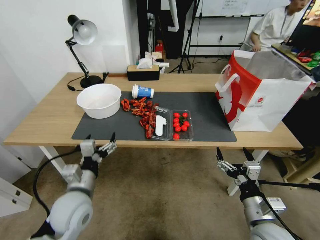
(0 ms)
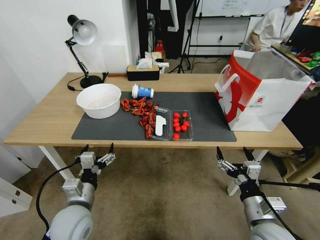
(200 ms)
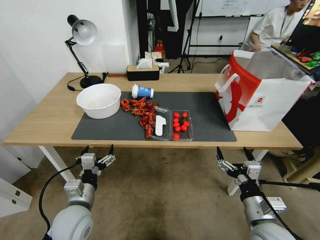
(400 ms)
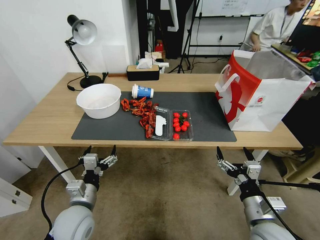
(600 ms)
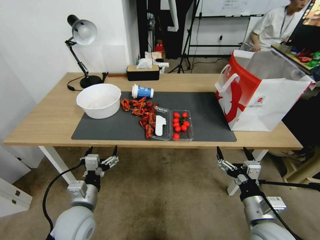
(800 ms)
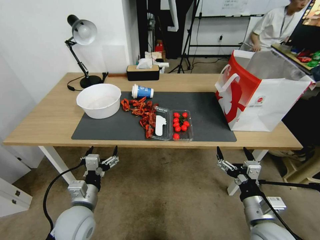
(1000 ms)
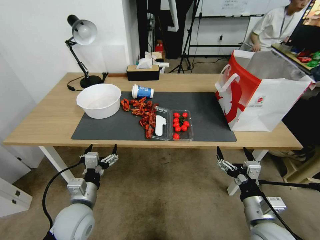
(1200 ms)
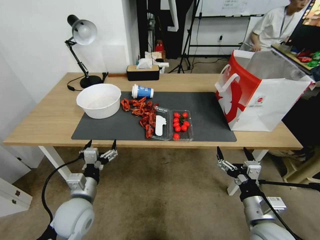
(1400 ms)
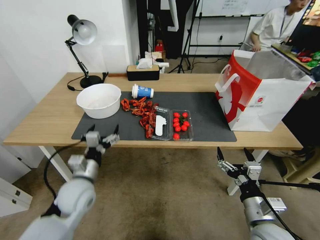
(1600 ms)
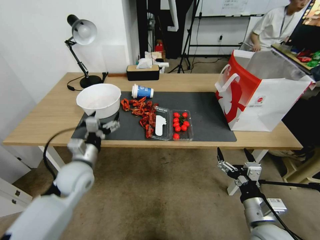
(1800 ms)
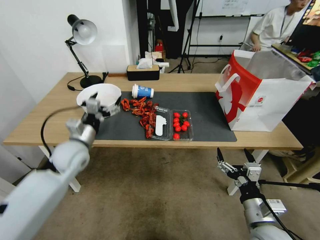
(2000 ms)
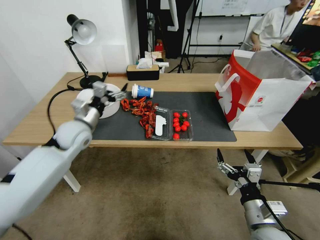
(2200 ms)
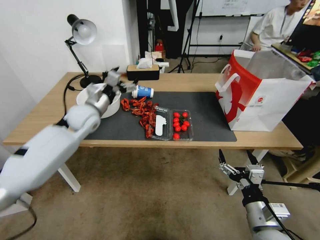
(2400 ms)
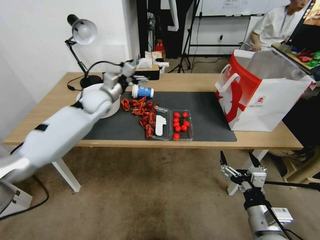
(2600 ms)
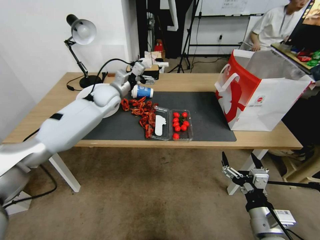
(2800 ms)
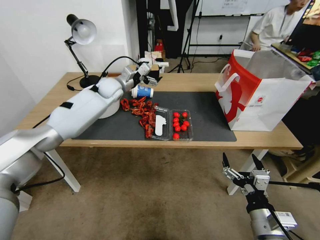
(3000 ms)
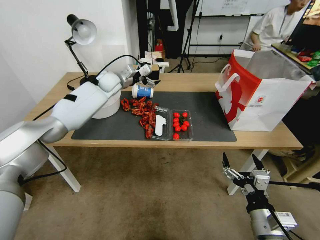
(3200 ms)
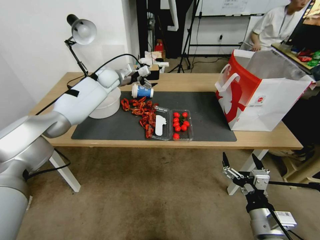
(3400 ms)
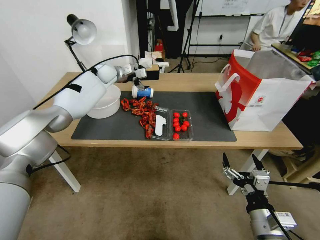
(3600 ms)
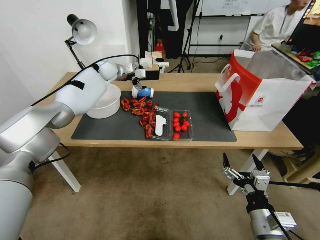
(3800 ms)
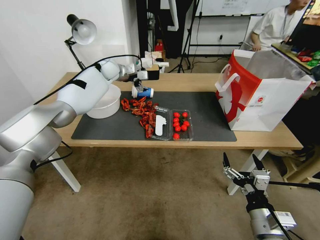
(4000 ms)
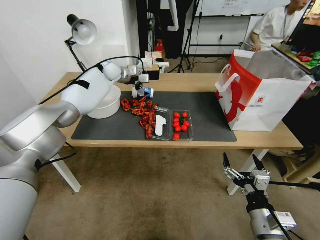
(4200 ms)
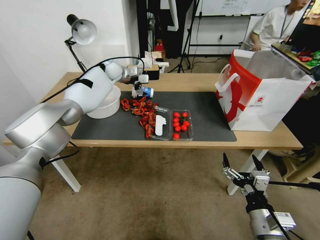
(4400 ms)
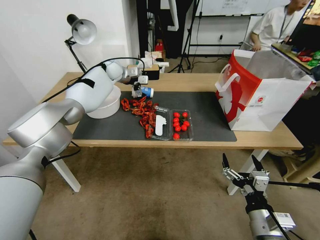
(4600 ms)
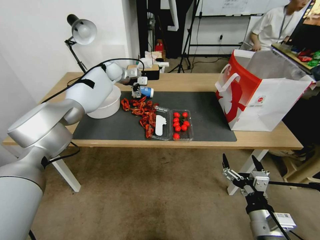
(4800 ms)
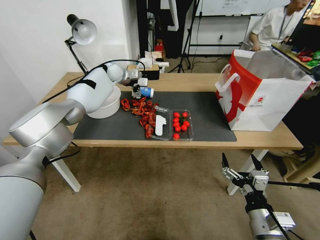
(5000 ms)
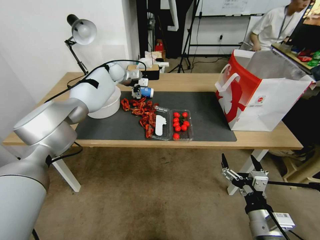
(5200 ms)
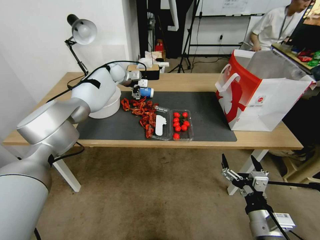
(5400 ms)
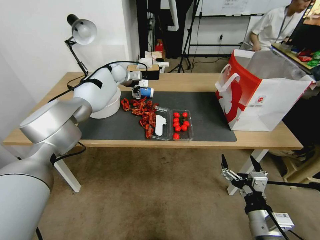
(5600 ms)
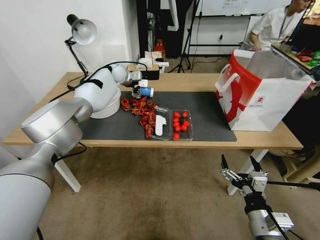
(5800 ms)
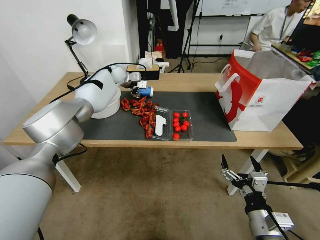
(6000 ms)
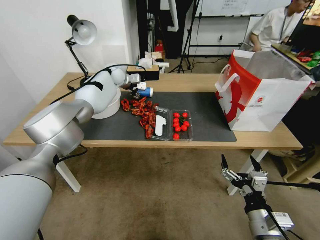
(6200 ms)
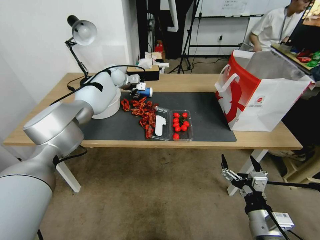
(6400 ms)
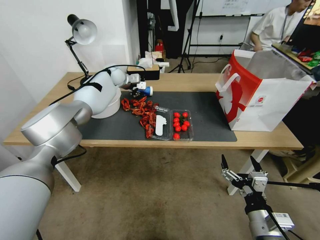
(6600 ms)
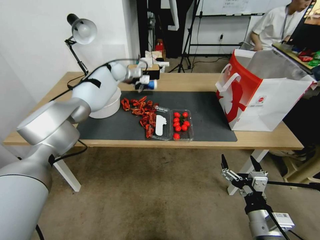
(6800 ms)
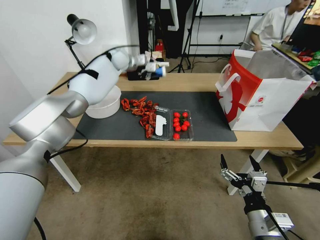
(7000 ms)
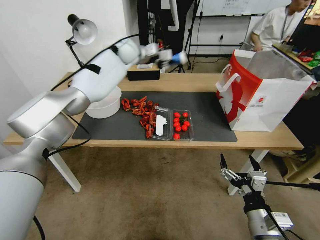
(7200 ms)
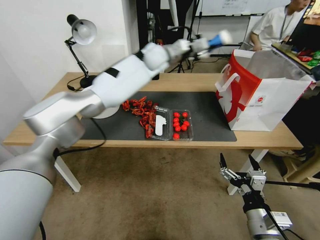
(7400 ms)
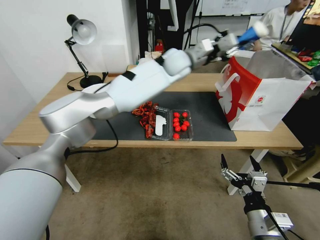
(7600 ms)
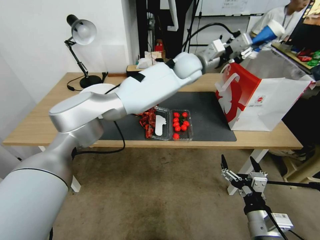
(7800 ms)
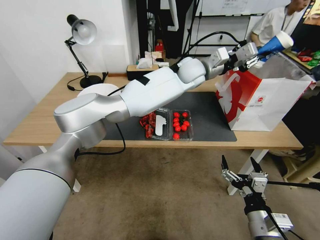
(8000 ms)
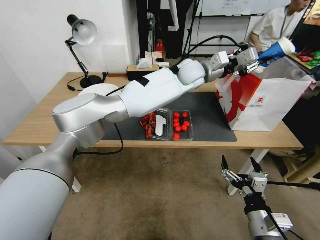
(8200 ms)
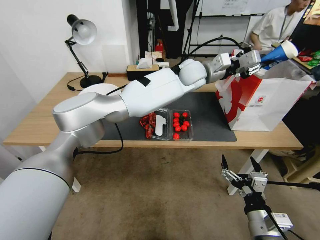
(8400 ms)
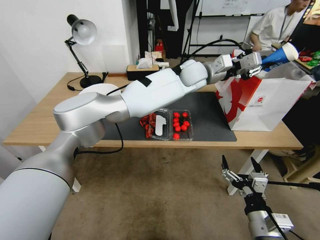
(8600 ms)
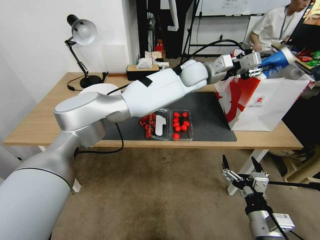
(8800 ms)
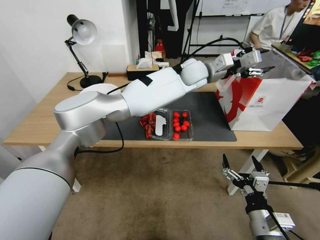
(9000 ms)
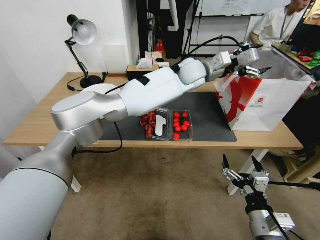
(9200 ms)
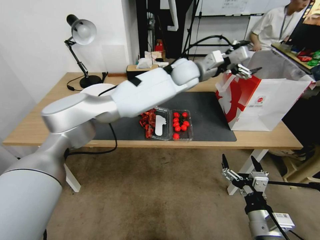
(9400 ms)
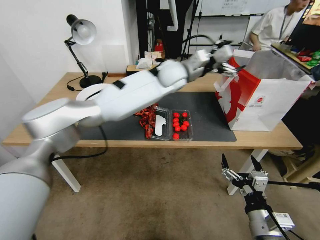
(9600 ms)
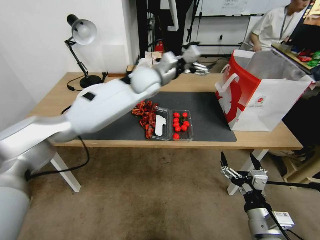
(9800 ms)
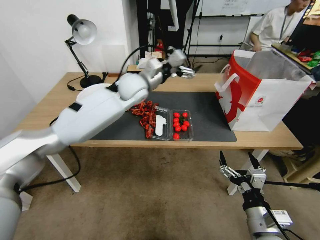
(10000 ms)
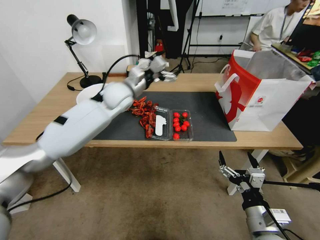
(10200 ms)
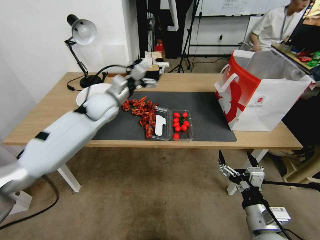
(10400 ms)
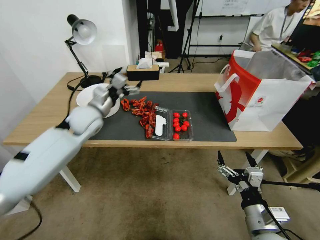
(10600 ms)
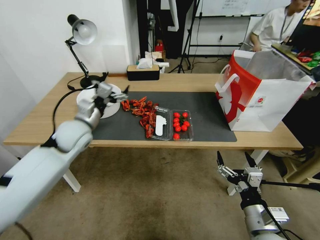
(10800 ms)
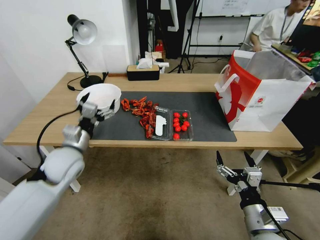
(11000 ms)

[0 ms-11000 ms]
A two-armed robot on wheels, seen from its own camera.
0 ms to 1600 ms: There are only small adjustments of the grippers.
1600 ms to 3200 ms: The left gripper shifts roughly 40 cm forward and upward.
3200 ms to 4800 ms: The left gripper goes roughly 5 cm forward.
4800 ms to 6200 ms: The left gripper closes up.
6200 ms to 7800 ms: The left gripper moves to the right and backward, roughly 30 cm, and closes.
7800 ms to 9400 ms: The left gripper opens.
9400 ms to 11000 ms: The left gripper goes some 50 cm to the left, backward and downward.

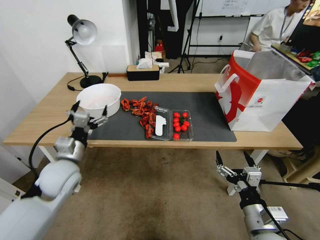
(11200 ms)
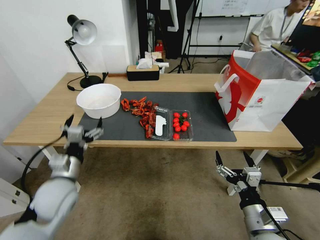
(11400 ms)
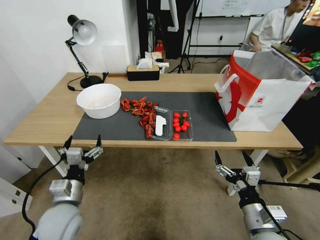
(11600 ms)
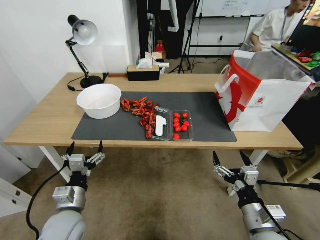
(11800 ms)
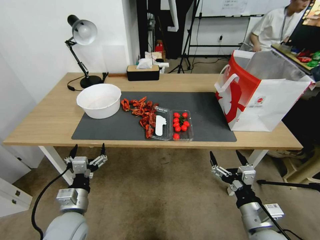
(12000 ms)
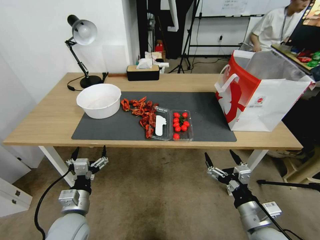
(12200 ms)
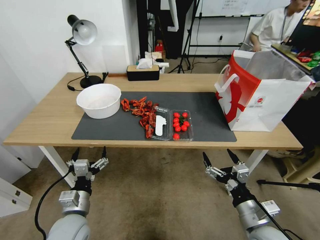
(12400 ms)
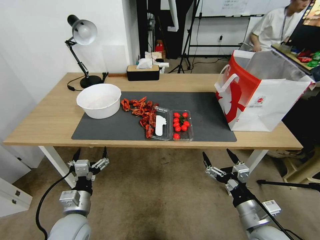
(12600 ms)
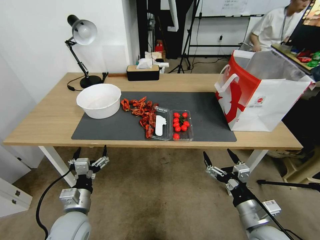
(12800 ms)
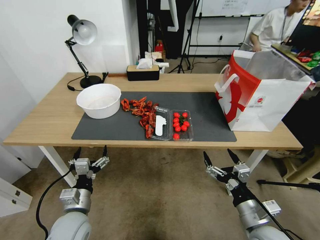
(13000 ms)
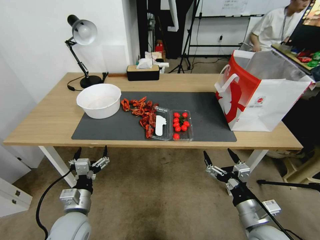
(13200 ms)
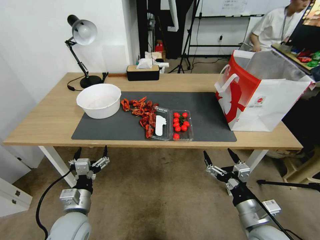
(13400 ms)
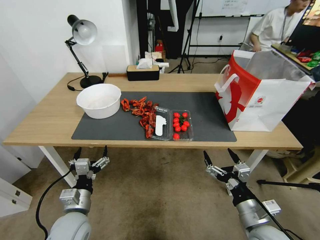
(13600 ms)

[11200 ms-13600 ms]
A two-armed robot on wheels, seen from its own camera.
11200 ms to 12400 ms: The left gripper heads backward and downward, covering some 15 cm.
12400 ms to 13600 ms: Both grippers stay about where they are.

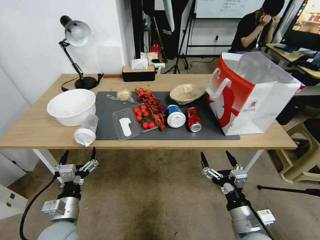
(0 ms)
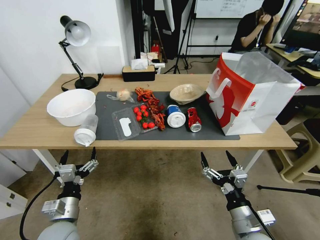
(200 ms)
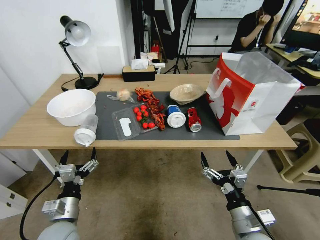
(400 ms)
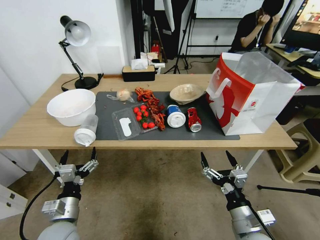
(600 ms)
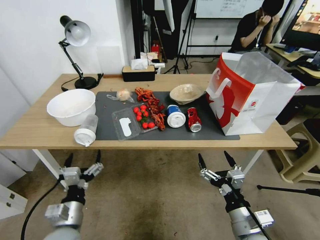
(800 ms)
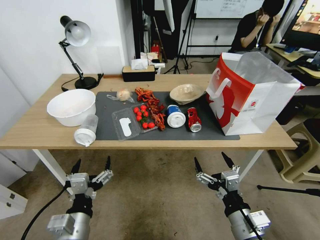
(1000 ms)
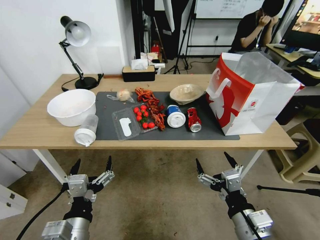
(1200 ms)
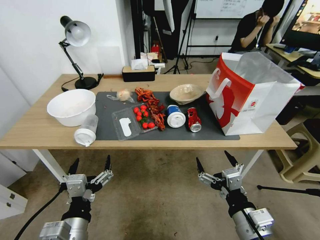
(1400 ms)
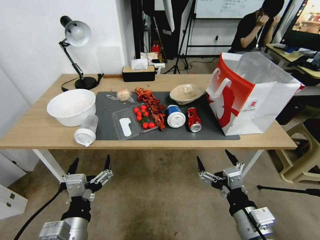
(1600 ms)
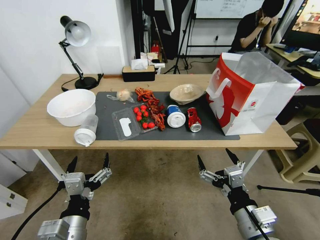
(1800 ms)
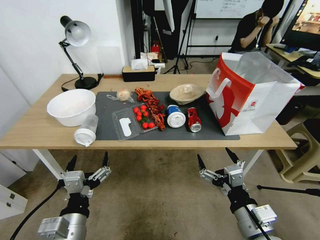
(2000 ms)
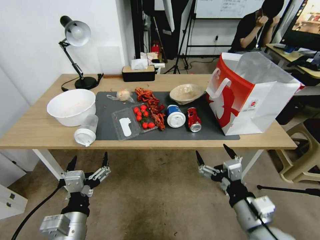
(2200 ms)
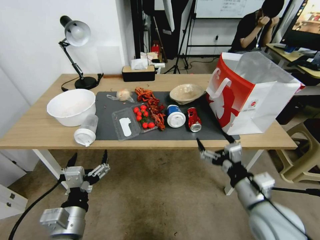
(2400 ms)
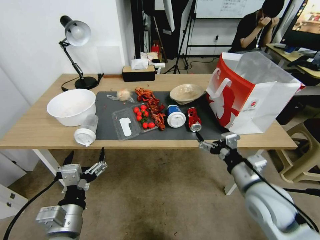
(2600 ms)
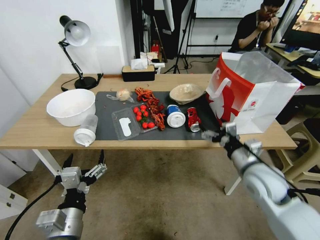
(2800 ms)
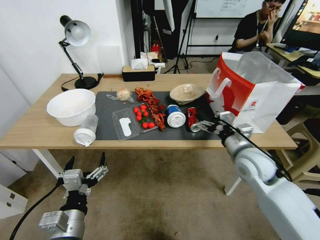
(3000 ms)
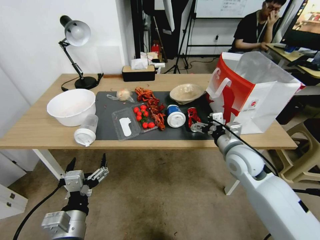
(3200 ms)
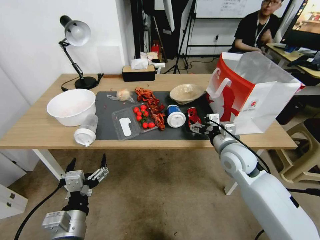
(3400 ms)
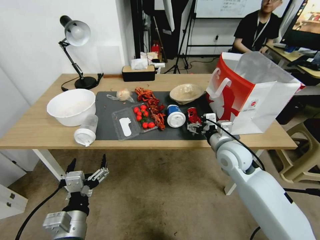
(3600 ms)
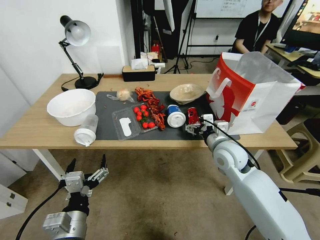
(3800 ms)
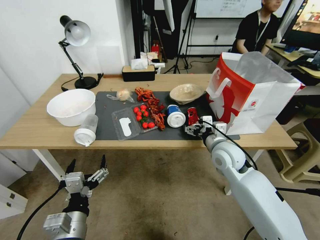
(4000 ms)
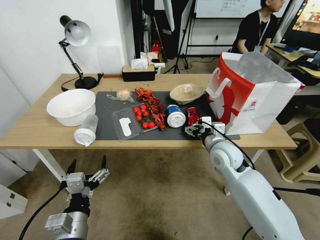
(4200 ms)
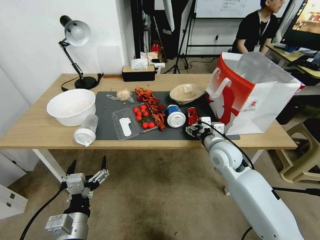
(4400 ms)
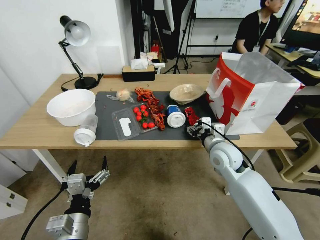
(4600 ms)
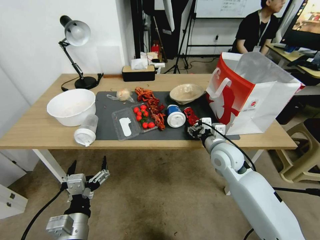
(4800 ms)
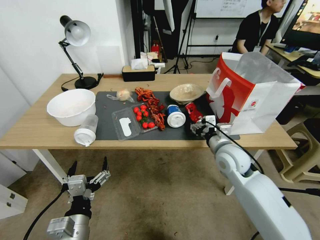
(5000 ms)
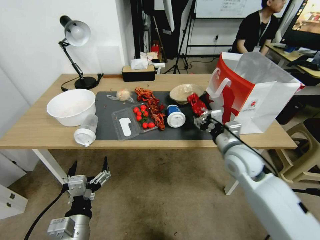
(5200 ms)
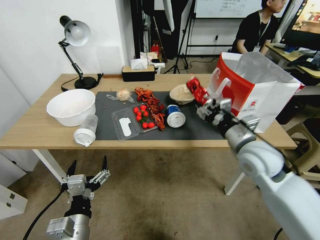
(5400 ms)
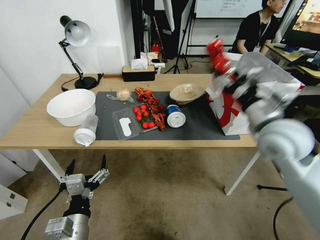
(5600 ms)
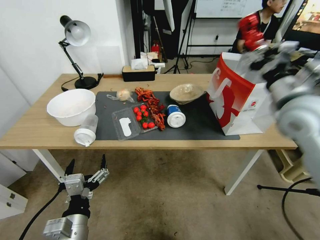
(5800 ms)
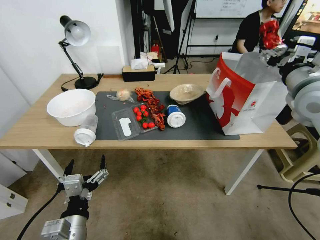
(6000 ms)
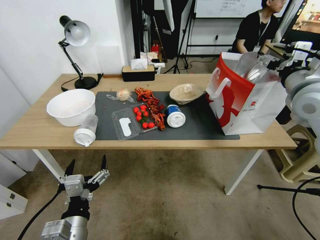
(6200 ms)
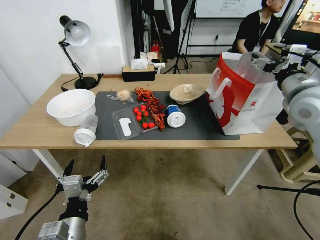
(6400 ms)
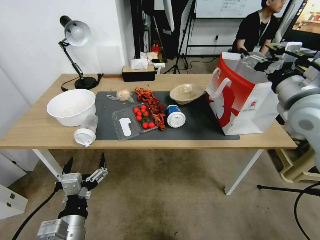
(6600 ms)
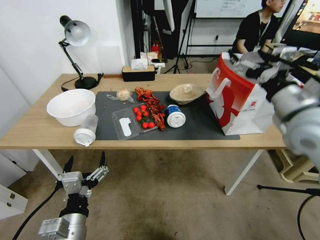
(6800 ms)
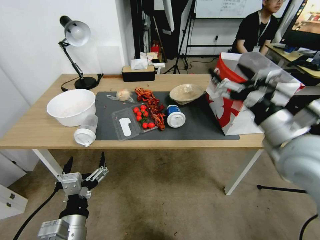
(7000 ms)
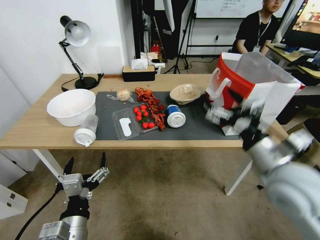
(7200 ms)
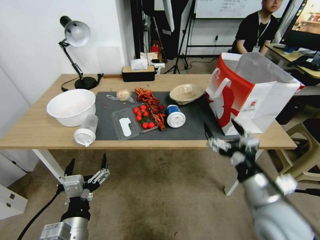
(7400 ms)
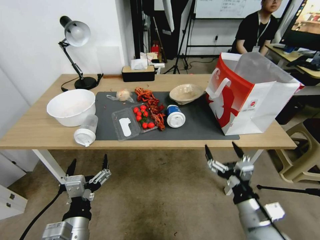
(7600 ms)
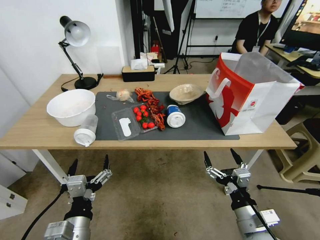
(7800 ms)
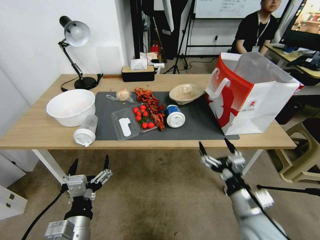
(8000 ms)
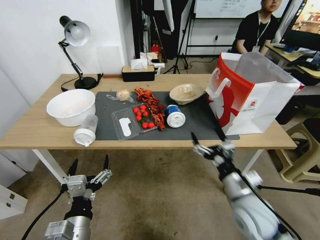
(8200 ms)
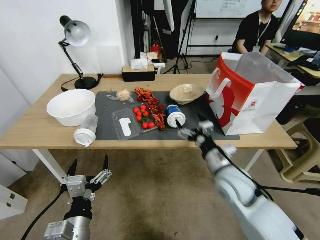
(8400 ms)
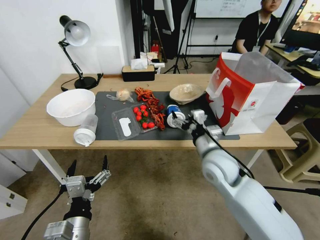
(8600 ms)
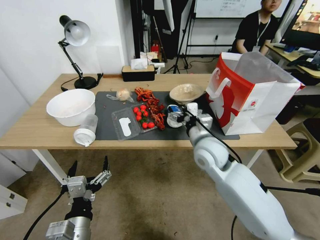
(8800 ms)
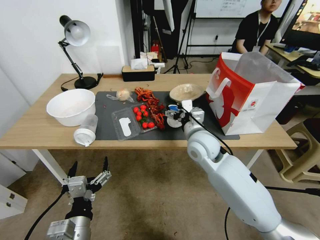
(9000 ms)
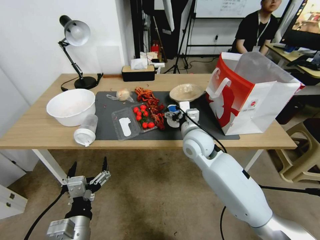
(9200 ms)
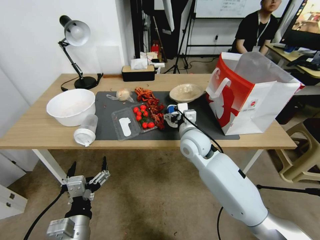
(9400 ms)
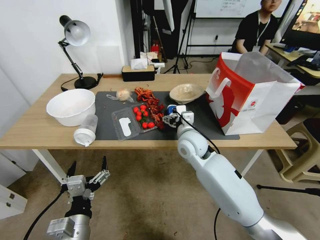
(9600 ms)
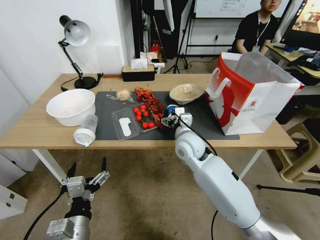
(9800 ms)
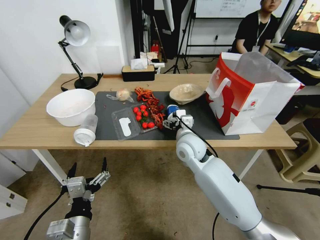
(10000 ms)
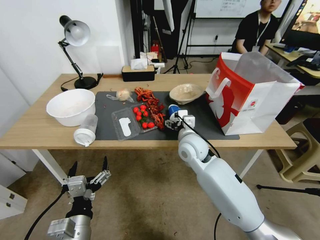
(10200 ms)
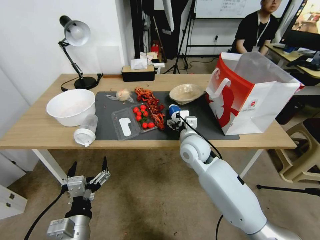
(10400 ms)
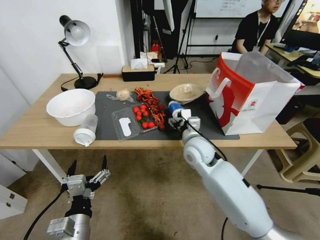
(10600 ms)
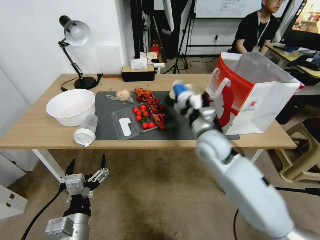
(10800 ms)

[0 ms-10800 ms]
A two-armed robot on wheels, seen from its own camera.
1600 ms to 3000 ms: The right gripper heads forward, covering roughly 20 cm.
3000 ms to 4600 ms: The right gripper heads to the left, covering some 5 cm, and closes up.
4600 ms to 6200 ms: The right gripper heads upward and to the right, covering roughly 25 cm.
6200 ms to 7800 ms: The right gripper is displaced downward and backward by approximately 40 cm.
7800 ms to 9200 ms: The right gripper heads forward, to the left and upward, covering roughly 30 cm.
9200 ms to 10800 ms: There are only small adjustments of the grippers.
